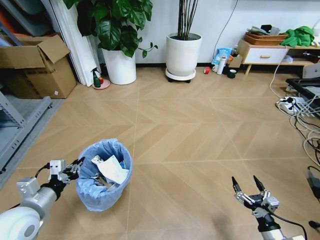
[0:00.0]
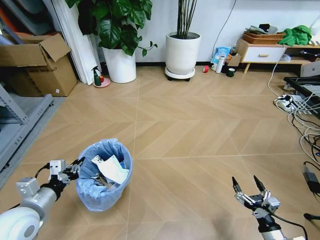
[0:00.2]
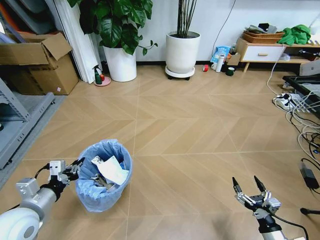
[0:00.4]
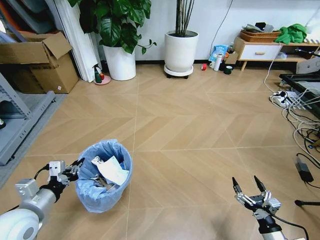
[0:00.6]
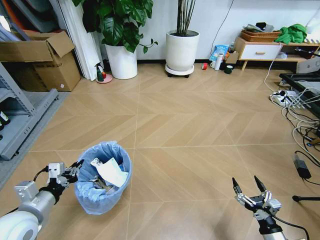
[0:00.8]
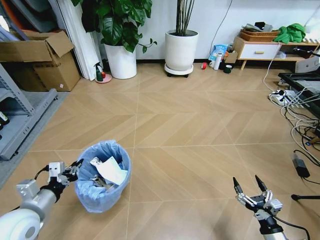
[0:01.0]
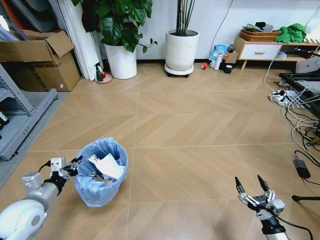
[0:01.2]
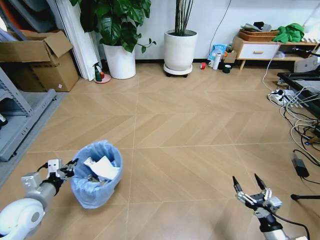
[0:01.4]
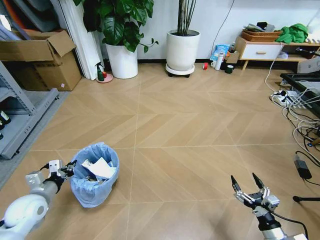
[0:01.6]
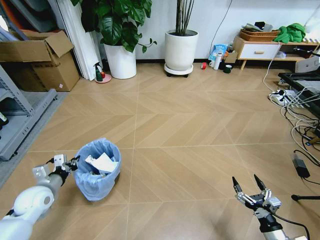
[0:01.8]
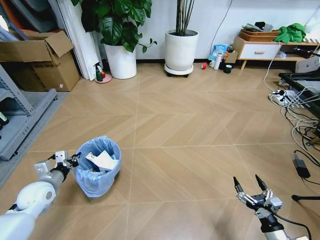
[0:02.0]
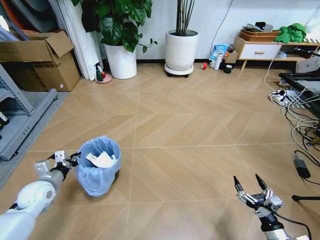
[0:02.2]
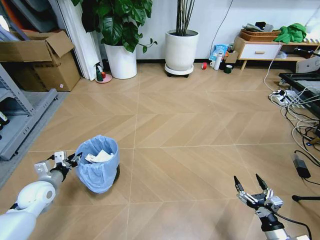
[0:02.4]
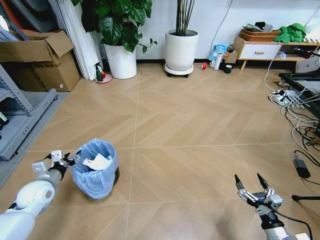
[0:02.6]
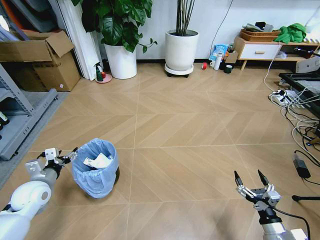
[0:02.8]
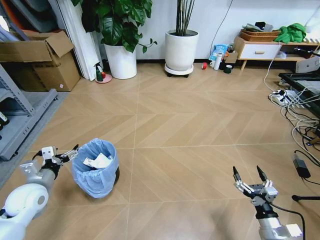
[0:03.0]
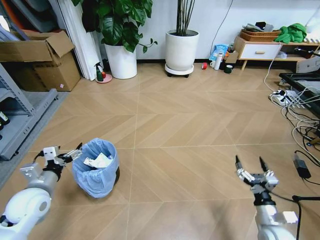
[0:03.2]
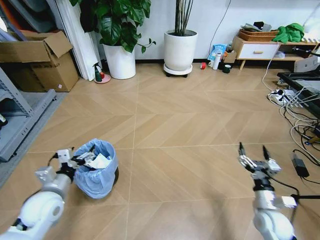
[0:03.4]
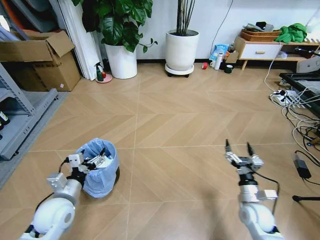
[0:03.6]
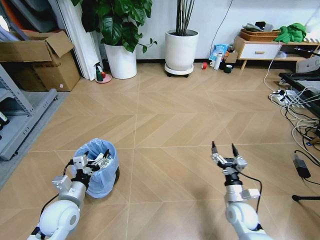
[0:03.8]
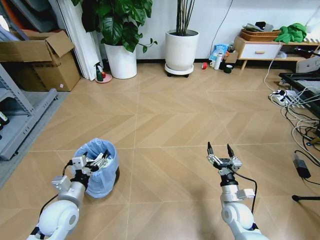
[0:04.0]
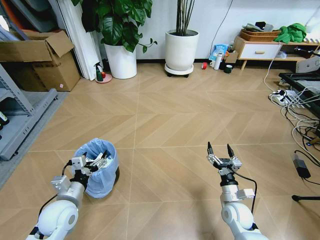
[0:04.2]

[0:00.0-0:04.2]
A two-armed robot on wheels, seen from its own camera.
Task of the whole recording: Pick up the trash bin and place the garbage on the floor into it.
0:00.0 to 0:01.4: The left gripper ends up some 5 cm from where it was.
0:01.4 to 0:02.8: The left gripper shifts approximately 5 cm forward, and opens.
0:02.8 to 0:04.2: The right gripper moves forward and to the left, some 15 cm, while the left gripper moves to the right and backward, some 15 cm.
